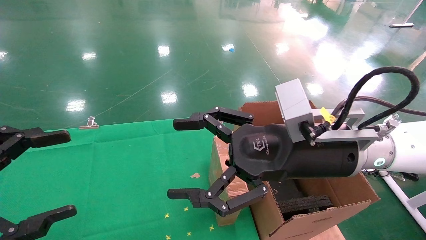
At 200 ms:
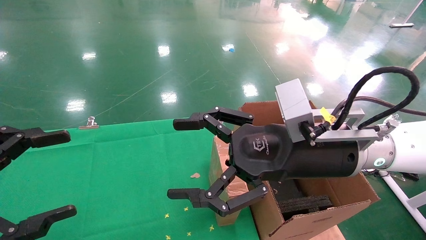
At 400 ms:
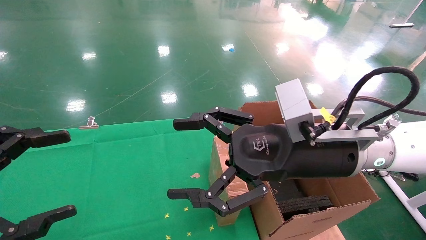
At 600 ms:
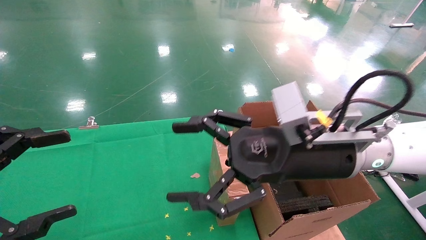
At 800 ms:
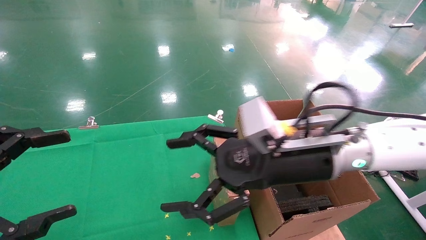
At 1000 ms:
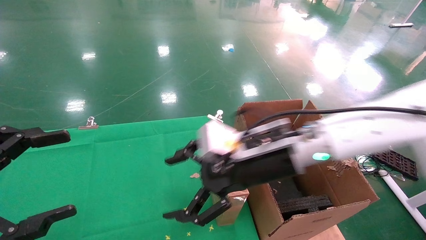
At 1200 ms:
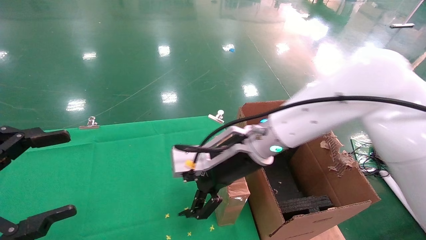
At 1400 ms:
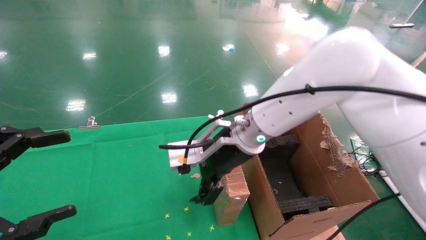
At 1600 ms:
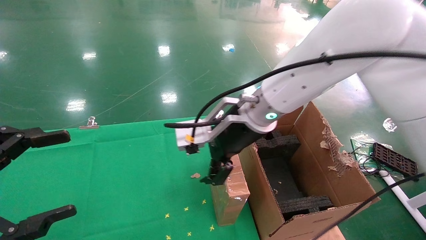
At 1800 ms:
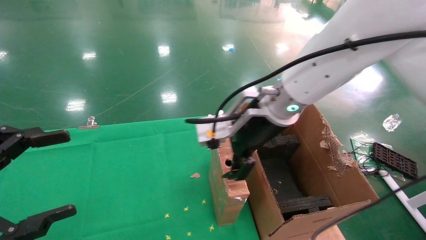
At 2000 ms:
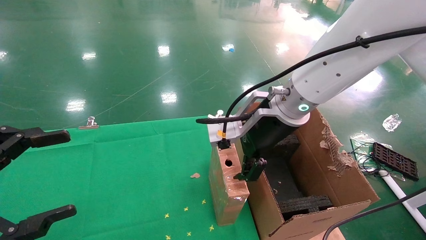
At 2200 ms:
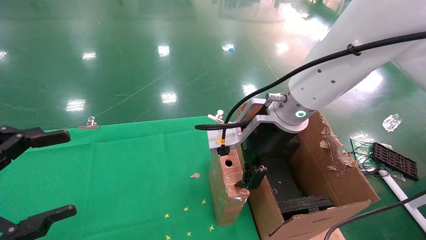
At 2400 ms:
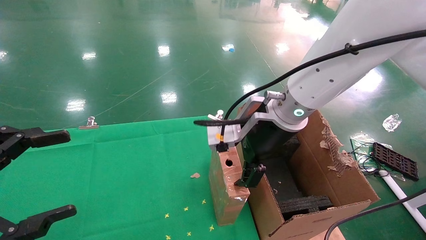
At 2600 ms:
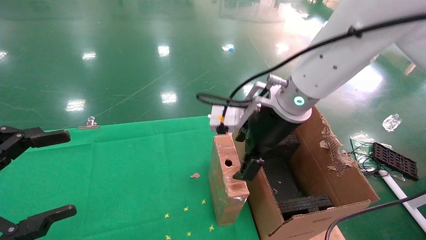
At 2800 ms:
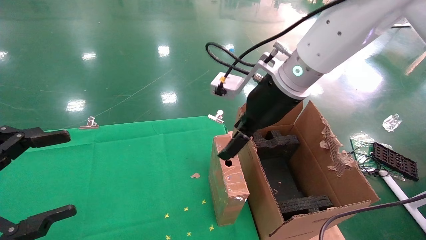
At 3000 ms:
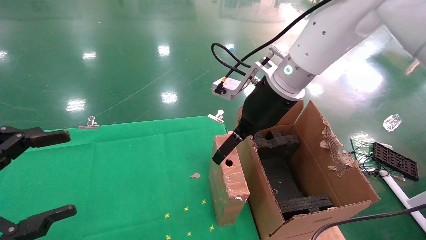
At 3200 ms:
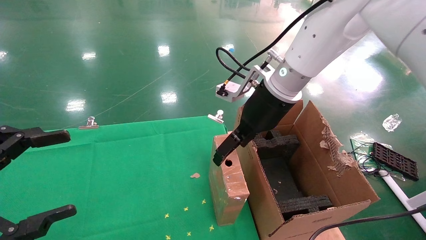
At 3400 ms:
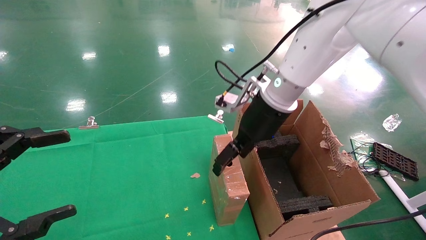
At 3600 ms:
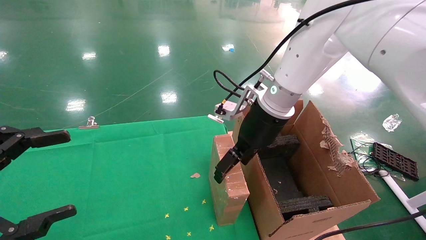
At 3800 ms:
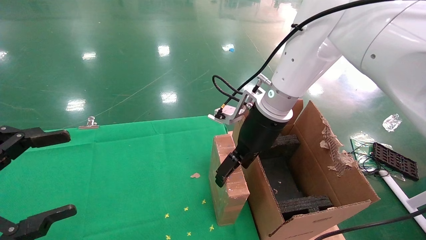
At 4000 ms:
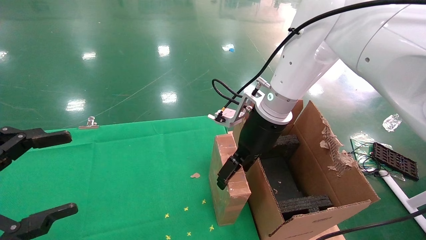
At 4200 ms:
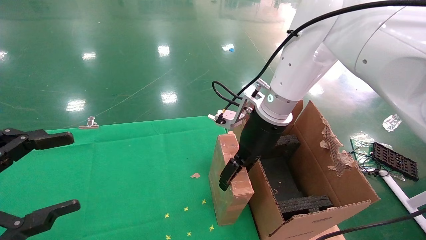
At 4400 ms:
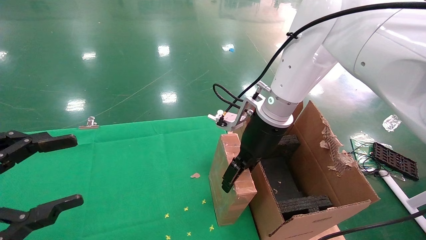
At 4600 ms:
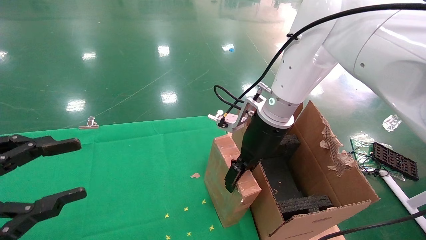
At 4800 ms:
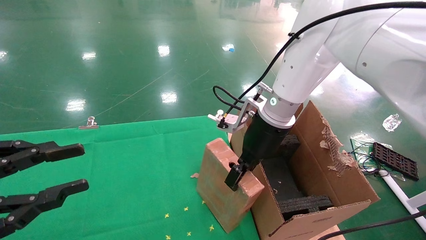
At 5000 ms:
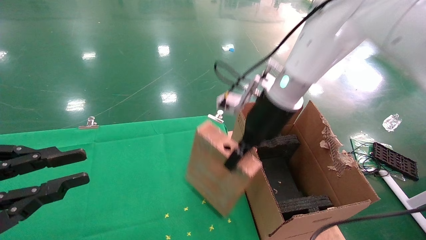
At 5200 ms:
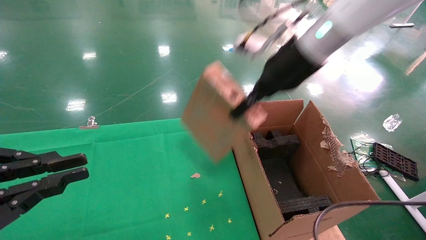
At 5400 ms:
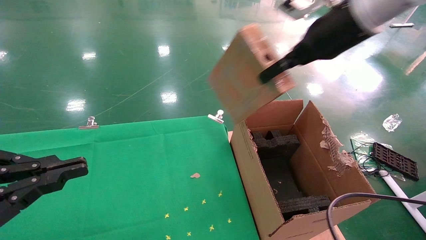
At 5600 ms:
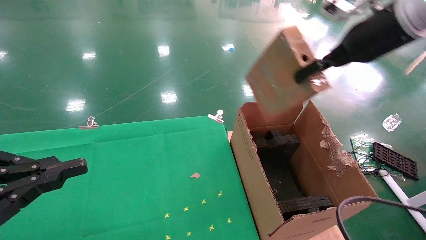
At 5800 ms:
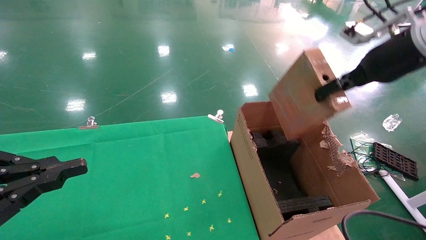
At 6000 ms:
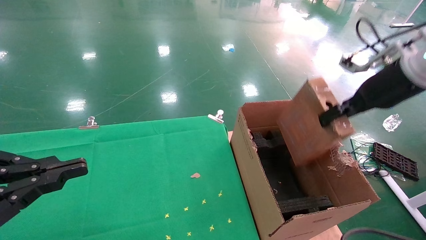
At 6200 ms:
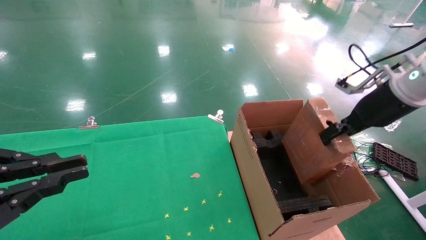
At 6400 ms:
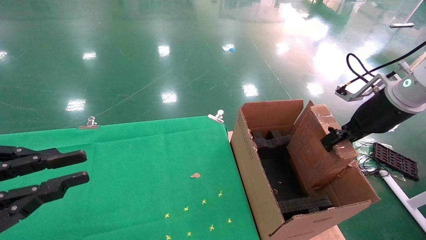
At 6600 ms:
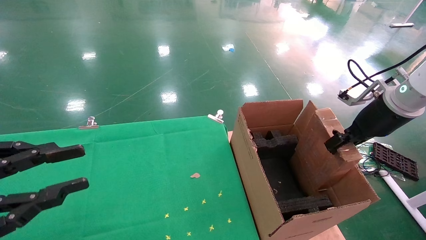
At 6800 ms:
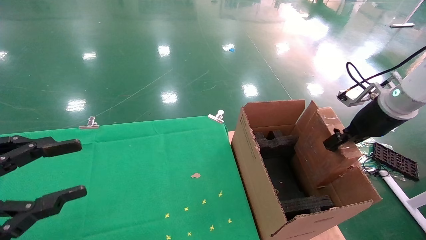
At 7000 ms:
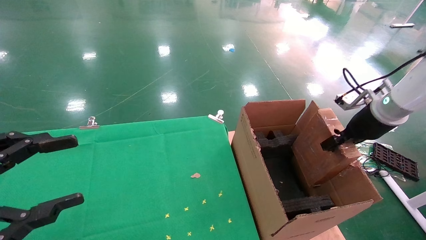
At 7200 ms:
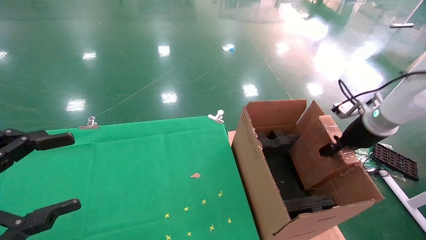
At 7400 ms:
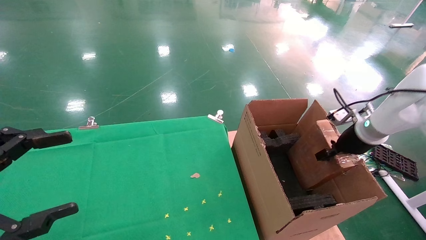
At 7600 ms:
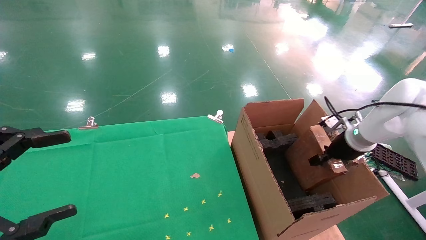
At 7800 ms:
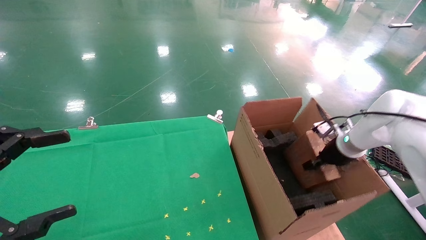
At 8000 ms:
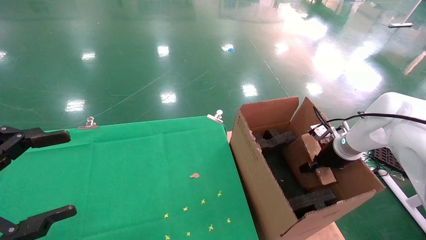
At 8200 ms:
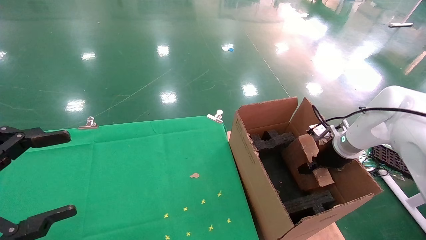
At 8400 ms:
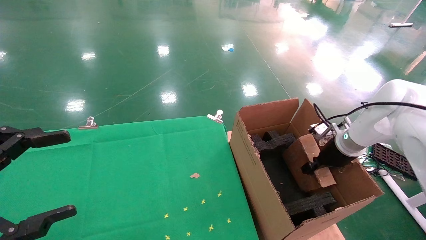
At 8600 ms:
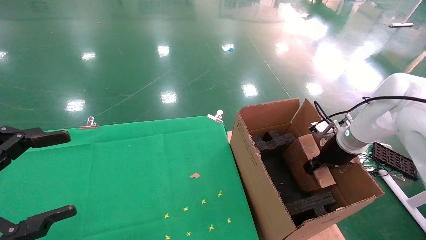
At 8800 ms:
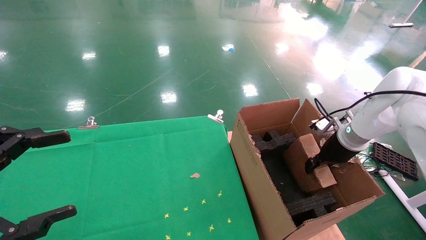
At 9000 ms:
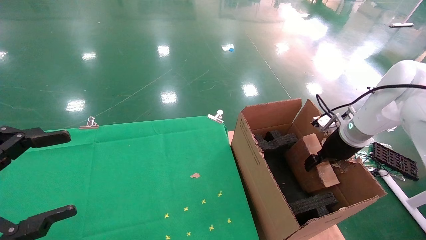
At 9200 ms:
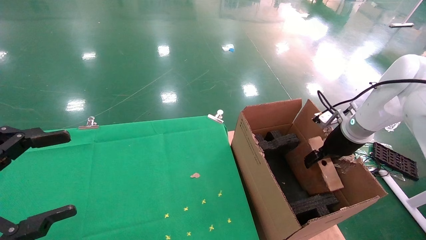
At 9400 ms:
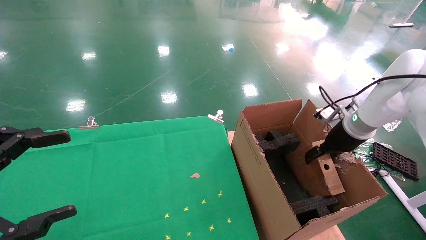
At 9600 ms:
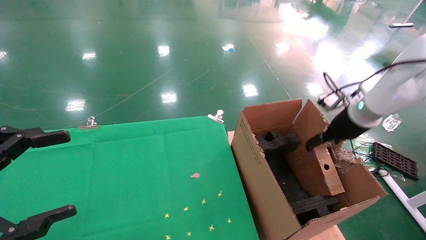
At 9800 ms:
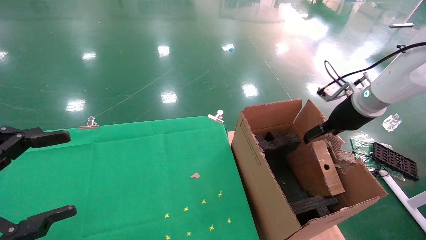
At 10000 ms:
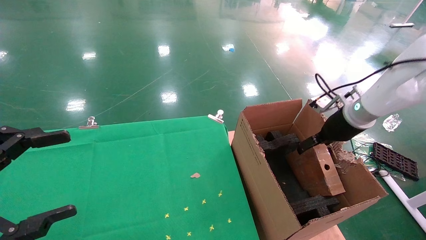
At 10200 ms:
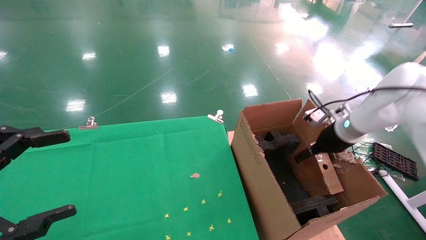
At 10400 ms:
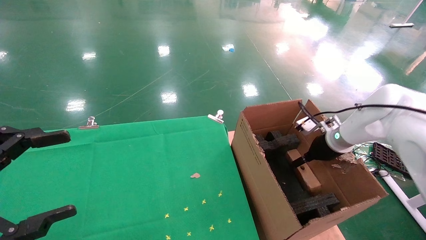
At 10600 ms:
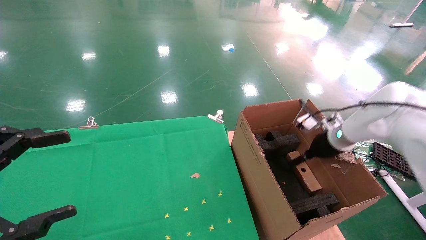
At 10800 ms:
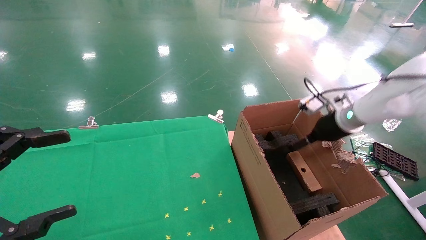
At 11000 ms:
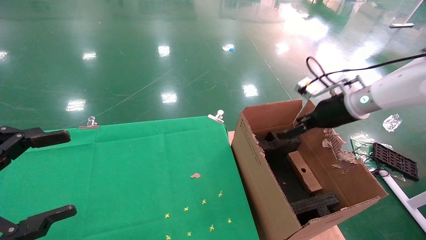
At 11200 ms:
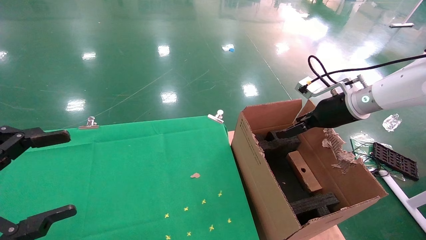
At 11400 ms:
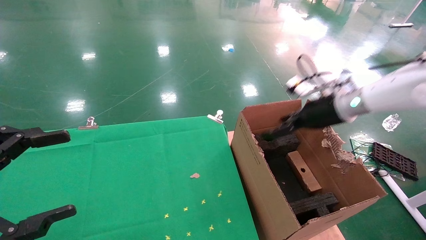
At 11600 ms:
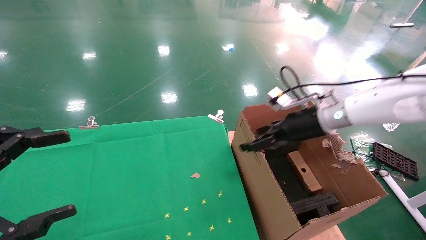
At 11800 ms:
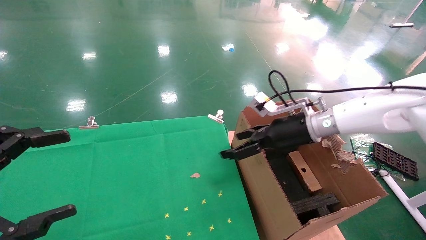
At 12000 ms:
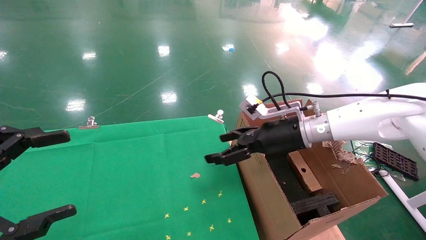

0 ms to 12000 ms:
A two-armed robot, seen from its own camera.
Task of the whole recording: using a robotic arm to pick up a cardboard box and palace it the carton.
Step, 1200 ms to 4800 ms: Pick up the mouse and the power cord paper box.
Step, 5000 ms to 9800 ms: Place the mouse and the power cord paper box into the container.
0 ms to 1600 ms: The right gripper heads forward and to the left, covering approximately 15 cm.
1600 ms to 3000 ms: The right gripper ends up about 5 cm from where it was.
3000 ms to 4400 ms: The right gripper goes about 5 cm downward.
4400 ms to 6000 ms: The left gripper closes its fingers. Meanwhile the right gripper goes approximately 25 cm to the right, and closes.
6000 ms to 7600 ms: The left gripper opens up, while the right gripper travels downward and forward by some 20 cm.
7600 ms to 9000 ms: The right gripper opens up.
9000 ms to 10400 ms: The right gripper moves roughly 5 cm upward and comes back, and opens up.
10400 ms to 12000 ms: The right gripper heads to the left, covering about 15 cm.

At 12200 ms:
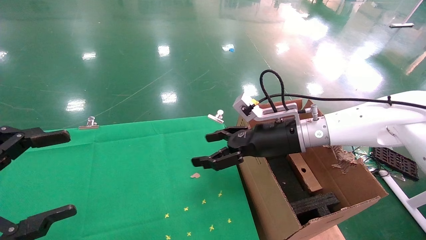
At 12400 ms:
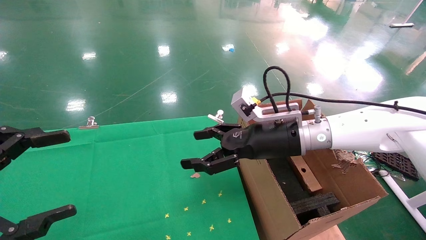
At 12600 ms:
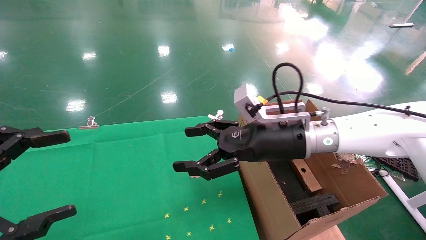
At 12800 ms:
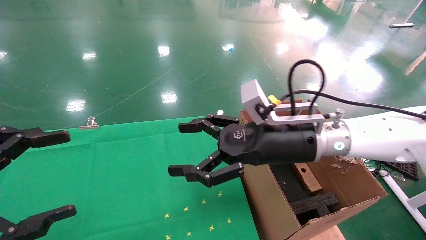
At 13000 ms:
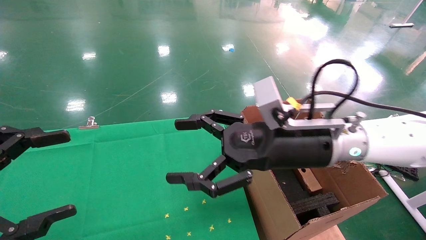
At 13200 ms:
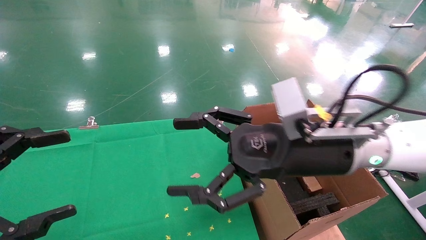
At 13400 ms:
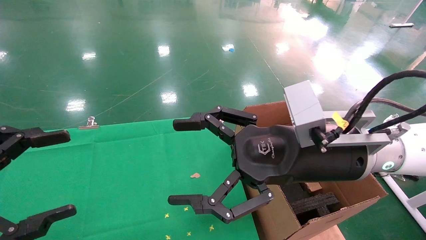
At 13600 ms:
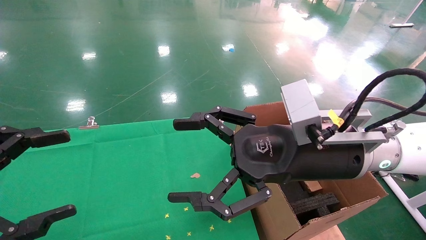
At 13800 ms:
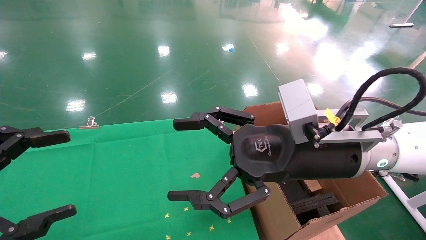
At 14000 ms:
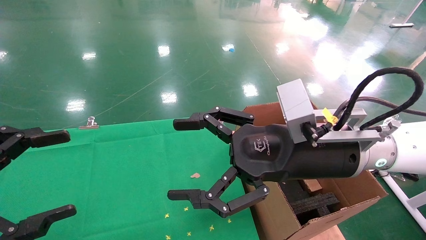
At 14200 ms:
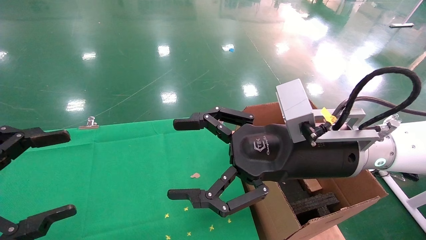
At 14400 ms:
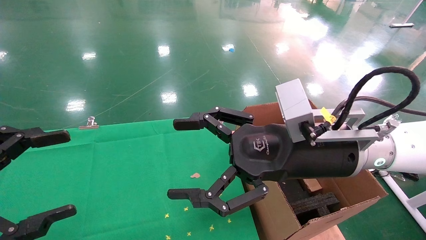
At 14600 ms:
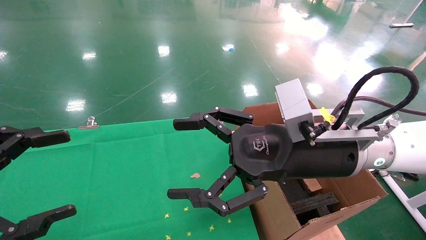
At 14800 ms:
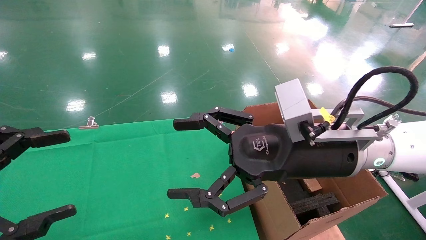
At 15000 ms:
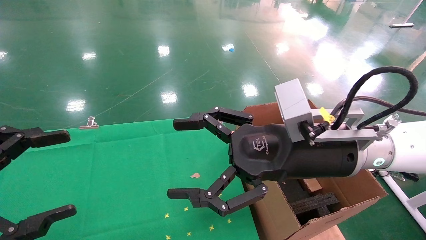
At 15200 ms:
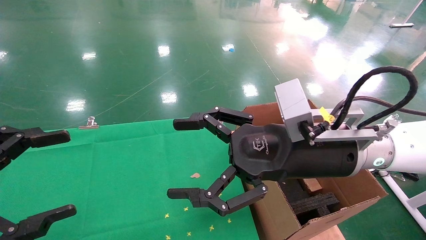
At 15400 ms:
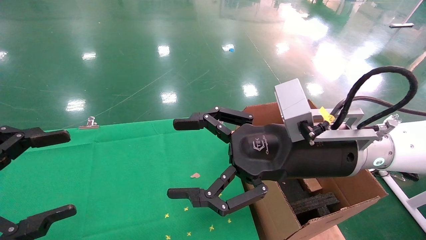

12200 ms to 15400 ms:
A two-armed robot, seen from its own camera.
Task of the whole recording: using a robotic arm to pick up a cardboard box and palace it the carton.
12200 ms to 13800 ms: The right gripper moves backward, about 15 cm.
13800 ms to 15400 ms: Both grippers stay about where they are.

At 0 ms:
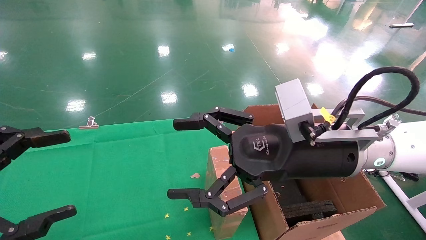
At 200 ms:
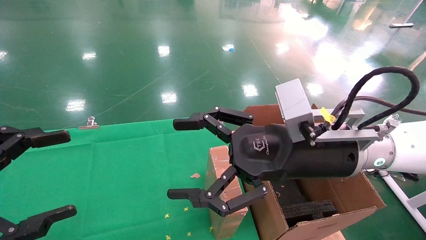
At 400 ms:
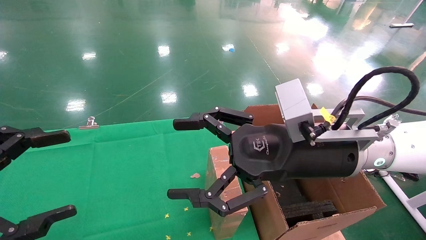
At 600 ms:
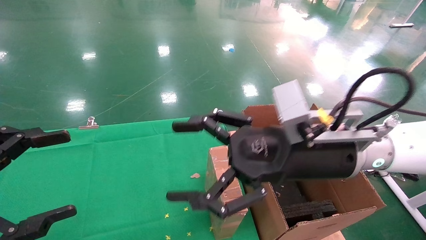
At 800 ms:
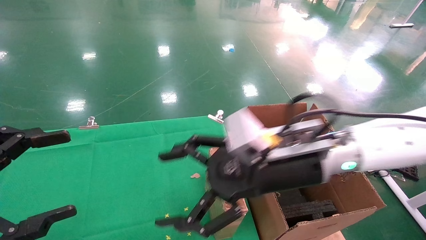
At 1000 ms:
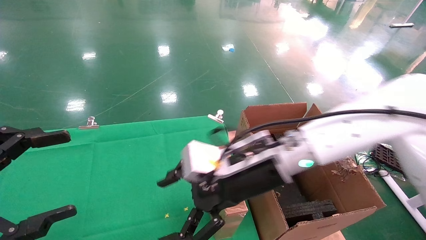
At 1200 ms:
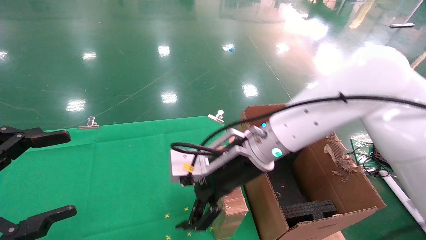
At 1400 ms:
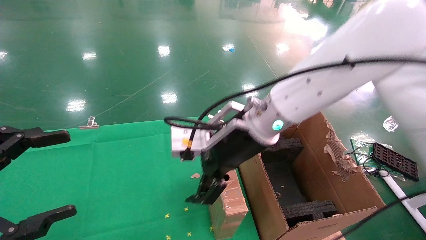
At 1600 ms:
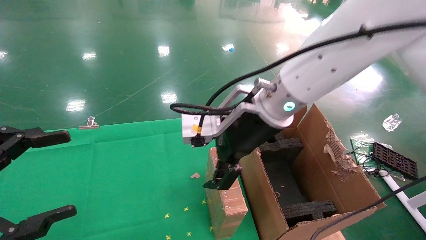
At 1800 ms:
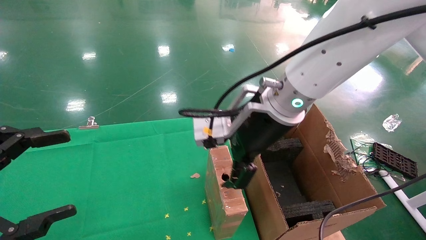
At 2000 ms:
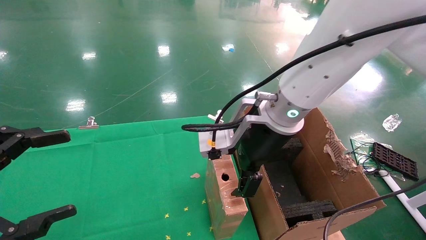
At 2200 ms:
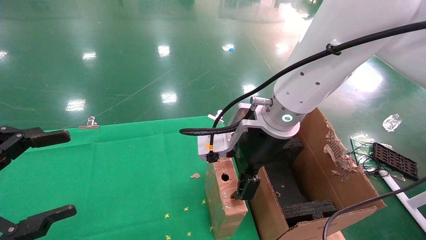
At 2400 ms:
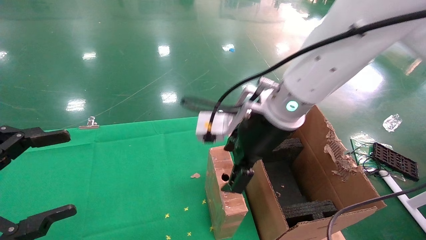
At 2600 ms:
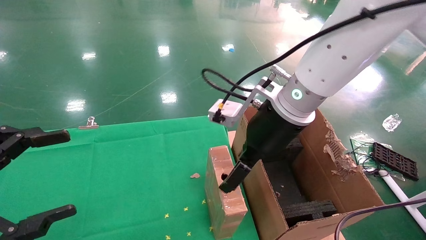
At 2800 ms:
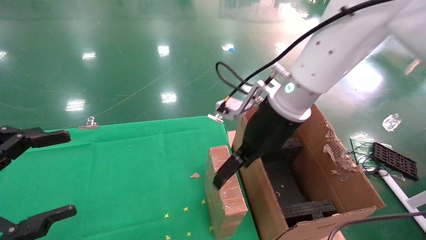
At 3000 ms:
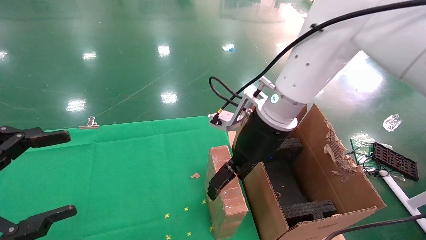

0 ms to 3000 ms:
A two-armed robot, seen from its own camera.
Task of the whole recording: using a robotic arm to pick up a cardboard box and palace it the carton.
0 ms to 1600 ms: The right gripper heads to the left and forward, covering some 10 cm.
